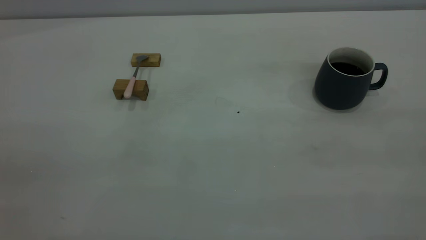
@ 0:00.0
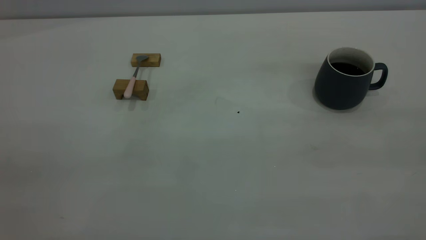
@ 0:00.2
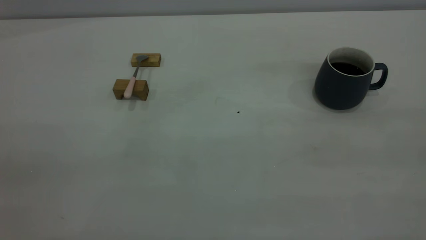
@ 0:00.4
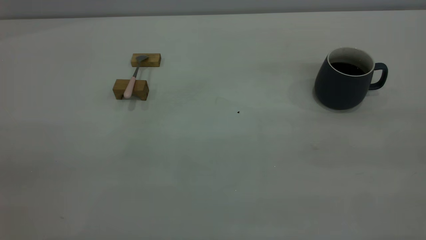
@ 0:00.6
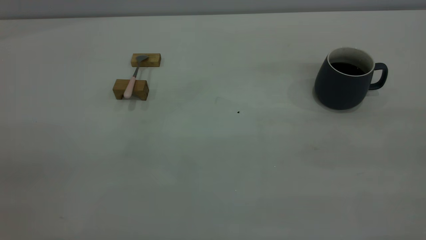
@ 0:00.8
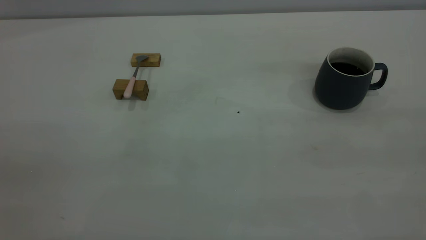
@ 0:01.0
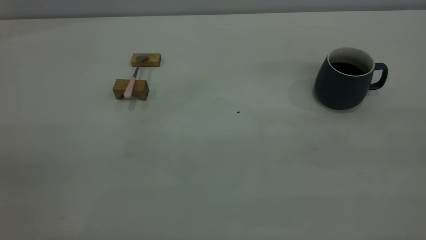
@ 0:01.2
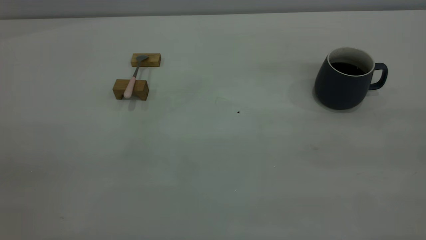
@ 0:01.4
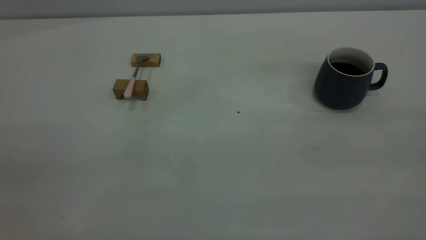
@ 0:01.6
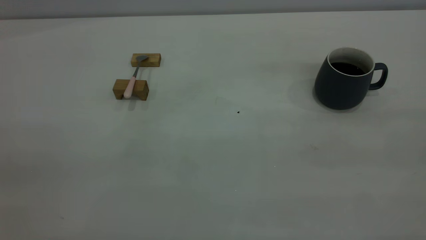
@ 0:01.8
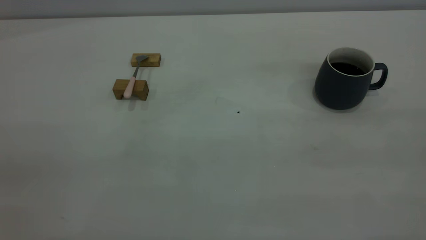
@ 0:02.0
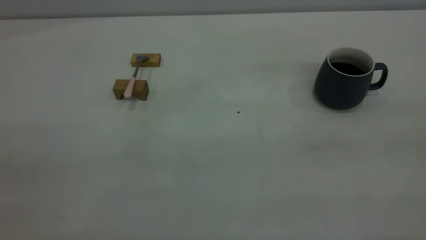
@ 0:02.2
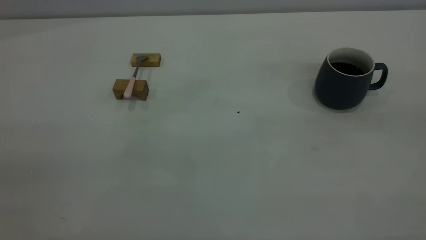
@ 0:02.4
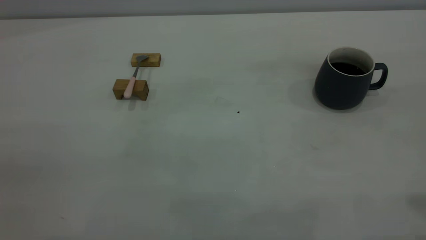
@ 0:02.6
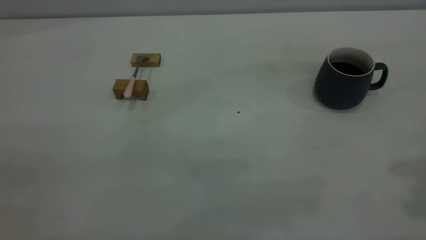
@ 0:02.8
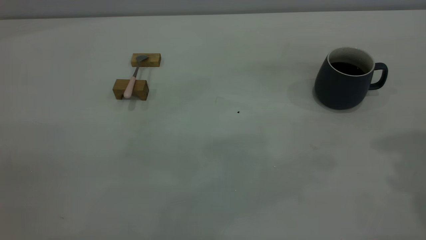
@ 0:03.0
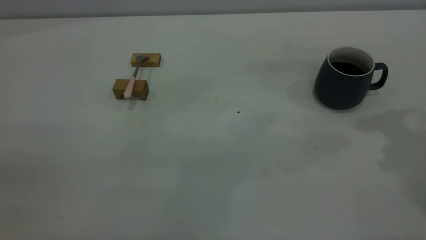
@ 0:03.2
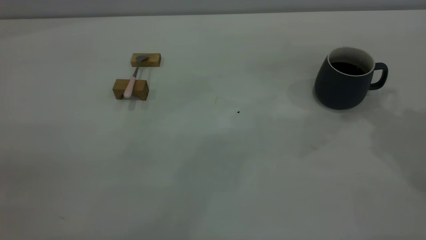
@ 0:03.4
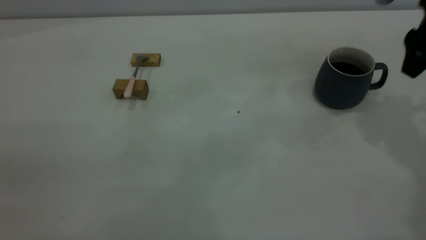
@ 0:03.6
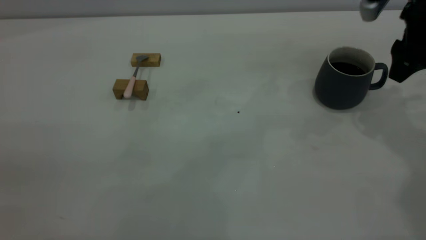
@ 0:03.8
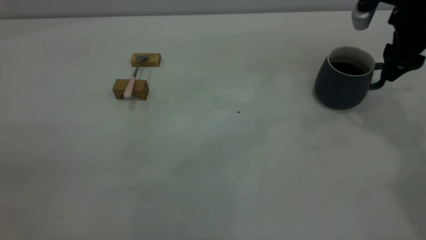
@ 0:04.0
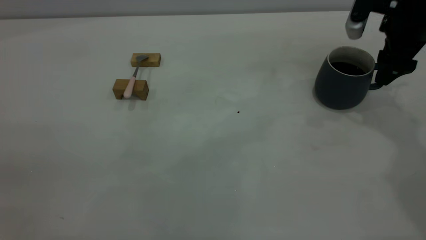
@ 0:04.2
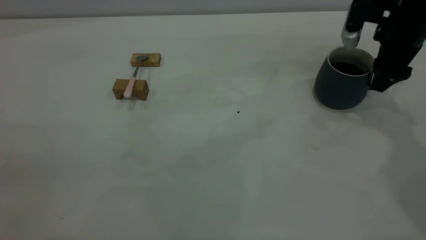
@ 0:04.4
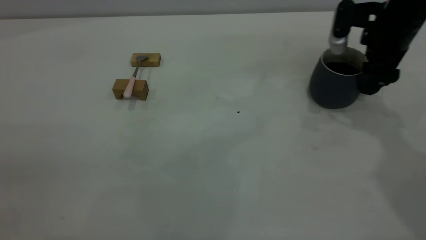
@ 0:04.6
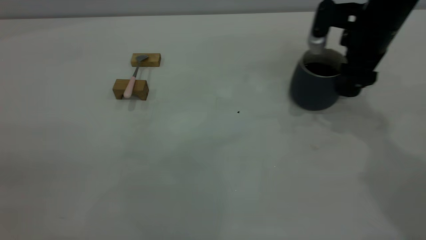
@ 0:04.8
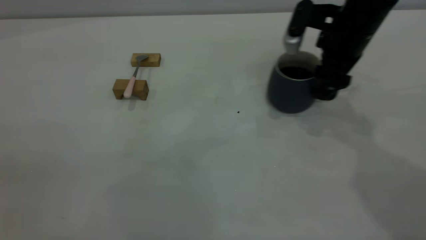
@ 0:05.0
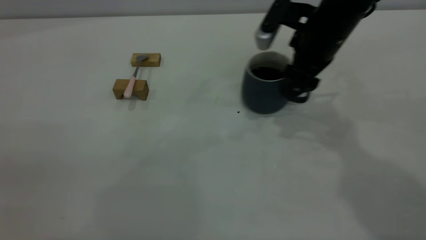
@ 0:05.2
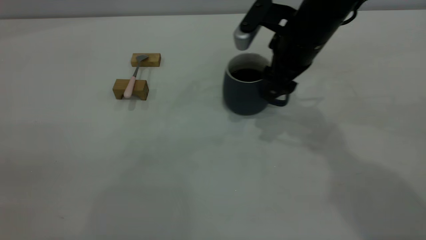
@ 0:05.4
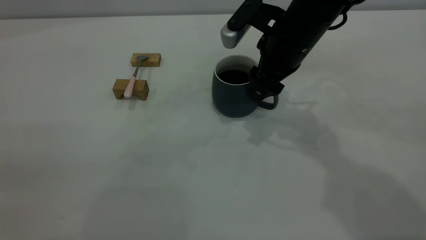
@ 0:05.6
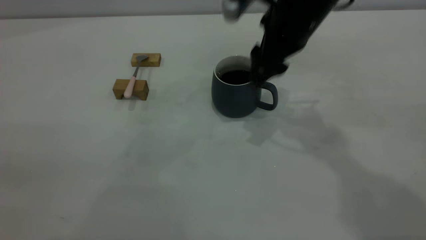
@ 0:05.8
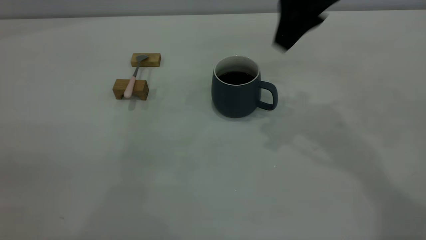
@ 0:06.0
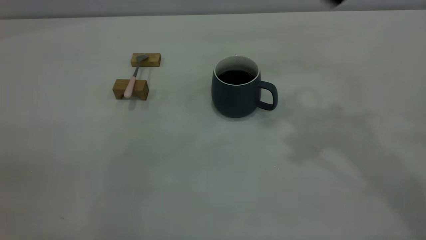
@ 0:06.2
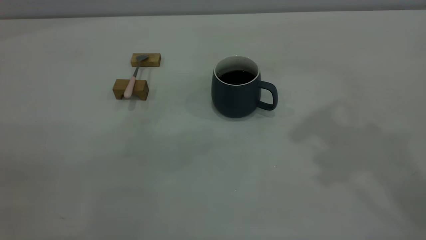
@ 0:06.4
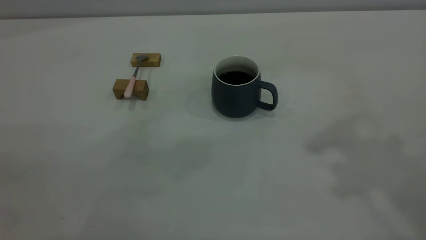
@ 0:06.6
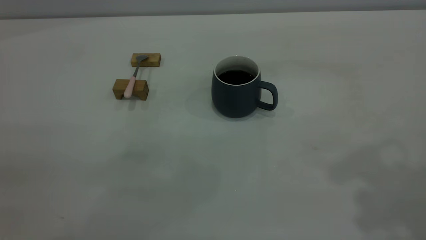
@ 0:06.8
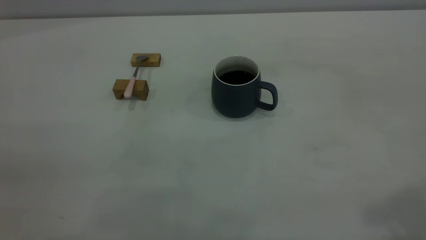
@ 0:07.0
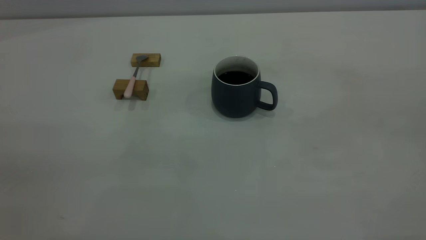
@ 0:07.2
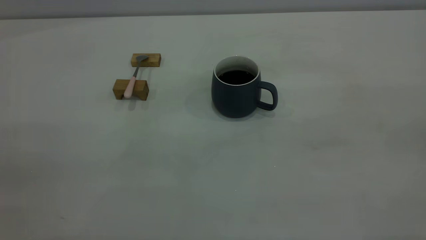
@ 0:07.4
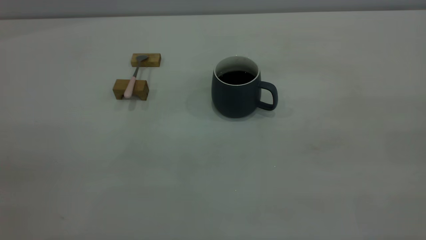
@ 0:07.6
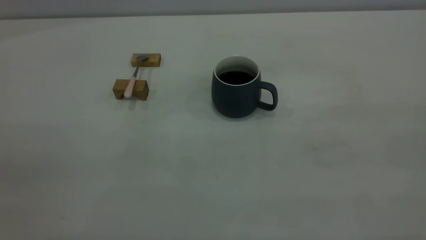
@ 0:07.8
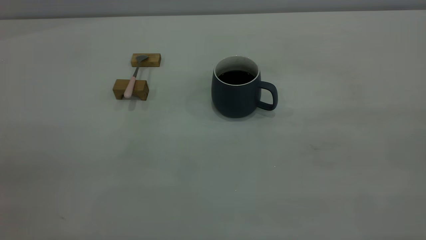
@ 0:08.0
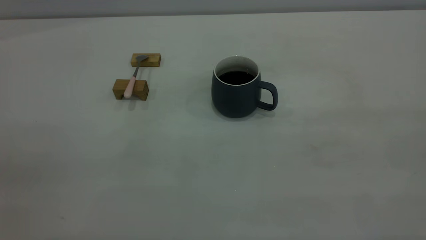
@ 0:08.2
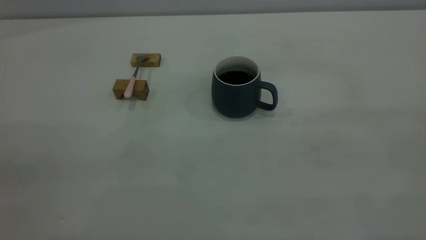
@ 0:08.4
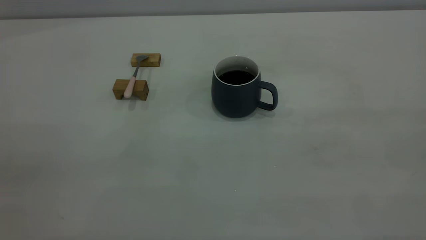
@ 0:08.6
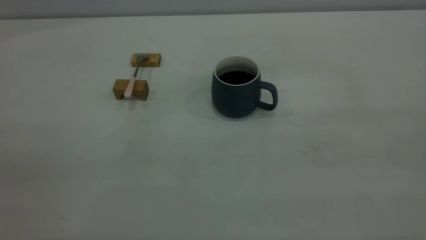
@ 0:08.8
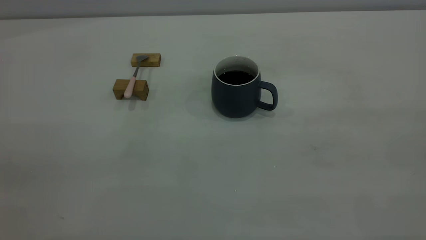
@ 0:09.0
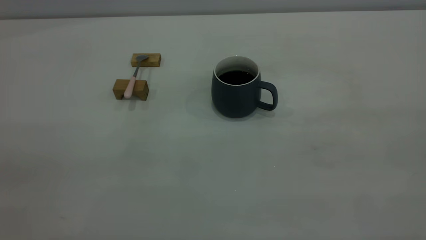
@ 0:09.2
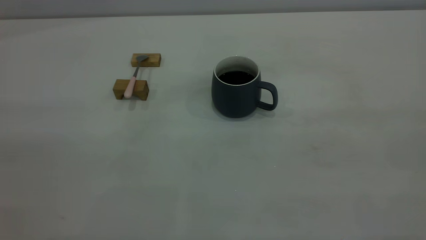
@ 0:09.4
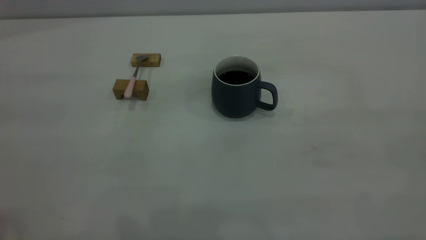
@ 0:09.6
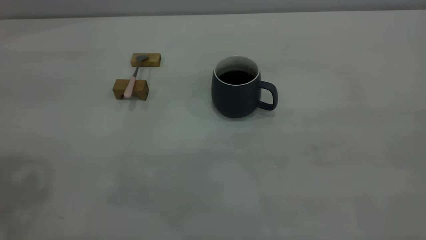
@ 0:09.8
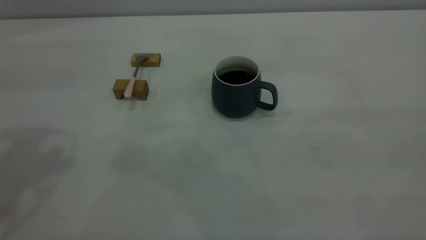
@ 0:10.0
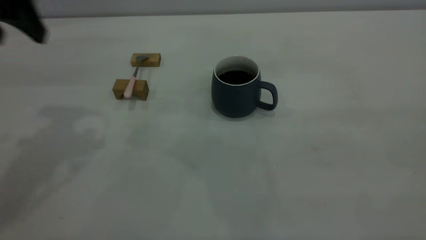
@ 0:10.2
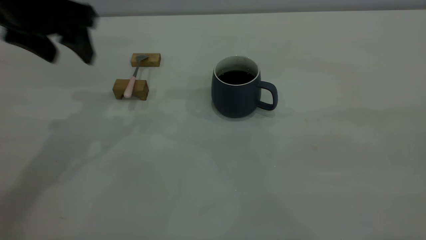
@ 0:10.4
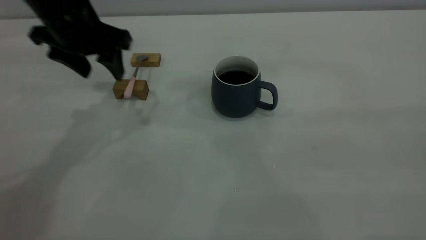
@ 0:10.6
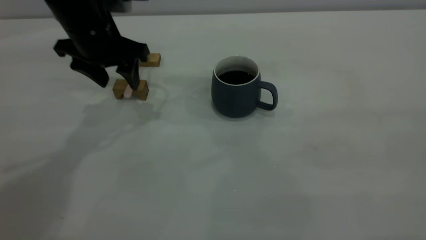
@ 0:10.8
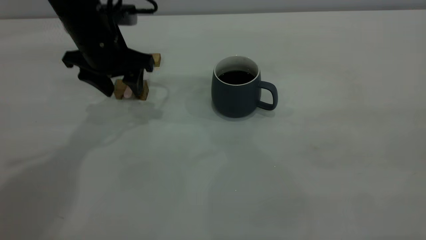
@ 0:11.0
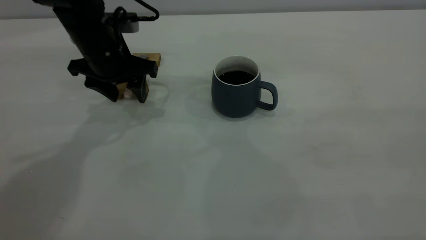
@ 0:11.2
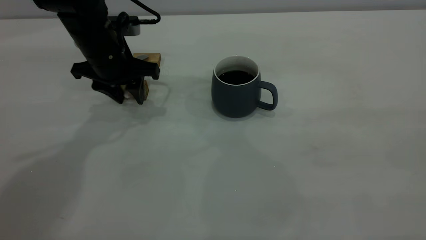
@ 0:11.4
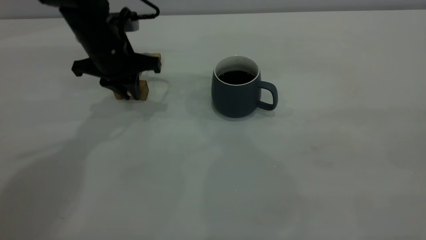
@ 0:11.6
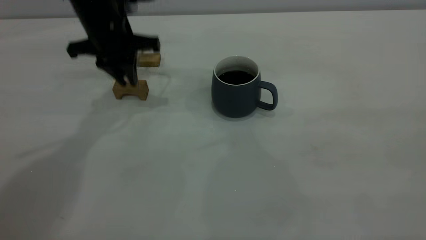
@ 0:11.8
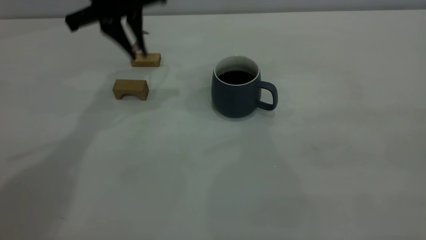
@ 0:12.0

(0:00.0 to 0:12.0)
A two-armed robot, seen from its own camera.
Step, 0:00.0 - 0:05.8: Move the cup with coffee to the center of view.
Step, 0:06.0 - 0:11.8: Pick up the spoon.
0:00.0 - 0:01.6: Both grippers stay put.
0:03.0 - 0:04.4: The right gripper shifts approximately 25 cm downward and forward.
0:04.4 - 0:06.0: The right gripper is displaced upward and to the left by approximately 20 cm.
0:06.0 - 0:07.6: The right gripper moves backward and to the right, about 35 cm.
0:09.0 - 0:10.4: The left gripper goes roughly 35 cm forward, and opens its fingers.
0:10.4 - 0:12.0: The left gripper goes roughly 10 cm forward and to the right, goes downward and returns, about 10 cm each way, and closes its fingers.

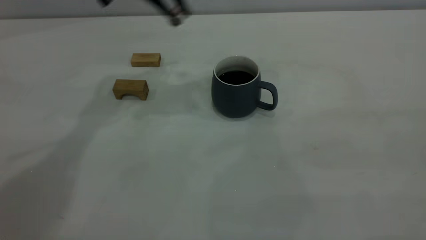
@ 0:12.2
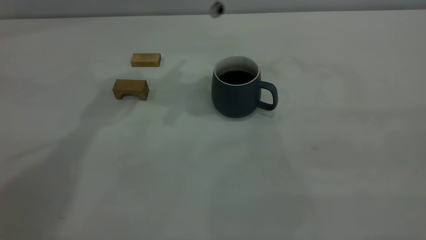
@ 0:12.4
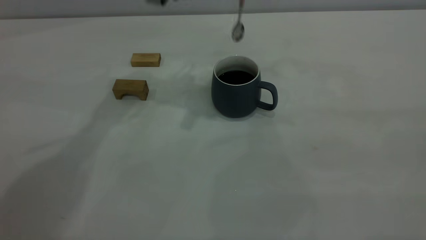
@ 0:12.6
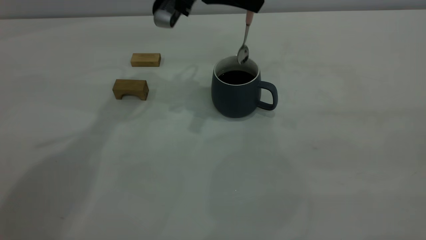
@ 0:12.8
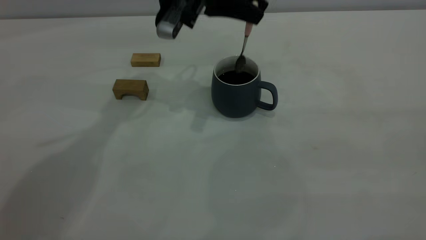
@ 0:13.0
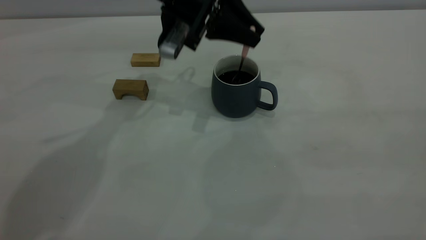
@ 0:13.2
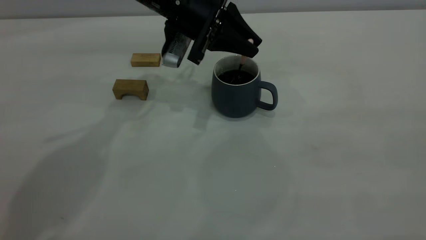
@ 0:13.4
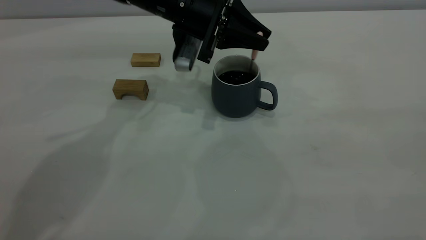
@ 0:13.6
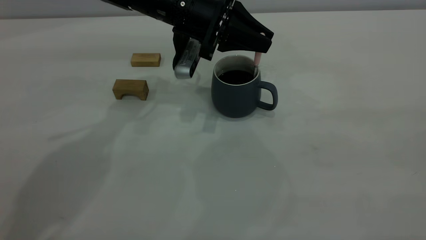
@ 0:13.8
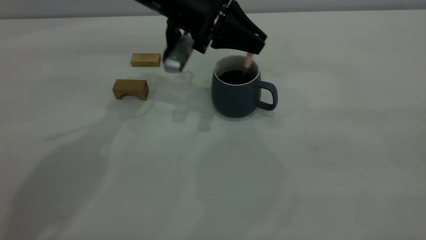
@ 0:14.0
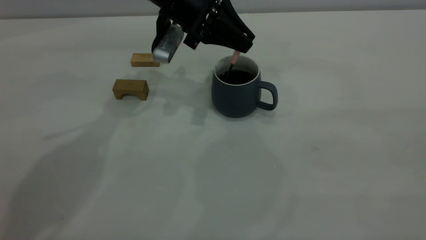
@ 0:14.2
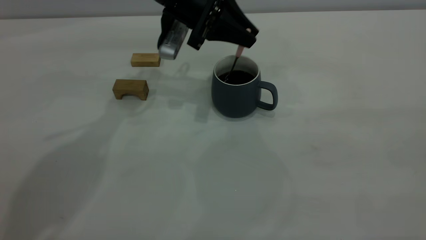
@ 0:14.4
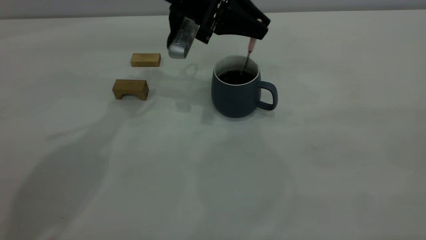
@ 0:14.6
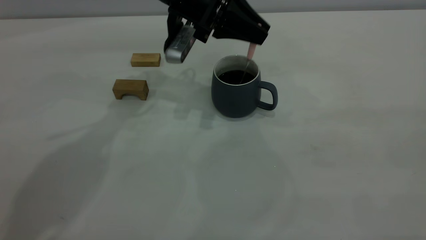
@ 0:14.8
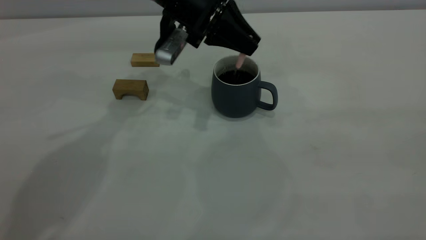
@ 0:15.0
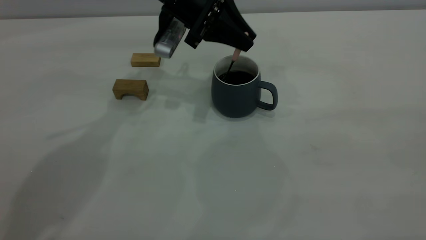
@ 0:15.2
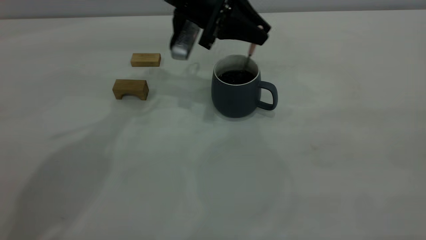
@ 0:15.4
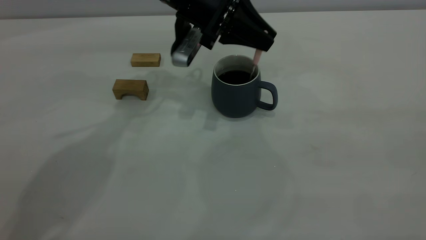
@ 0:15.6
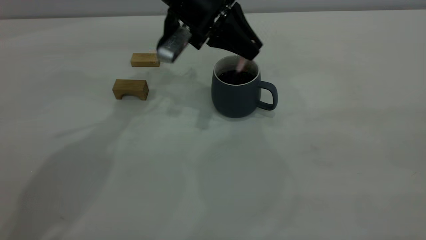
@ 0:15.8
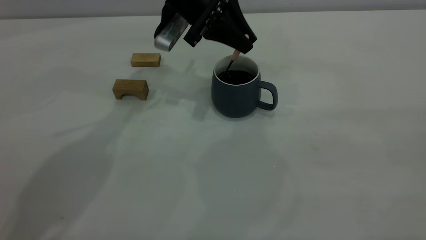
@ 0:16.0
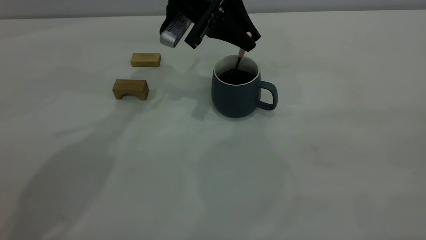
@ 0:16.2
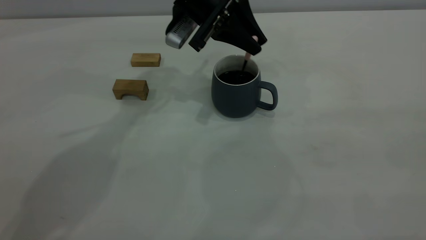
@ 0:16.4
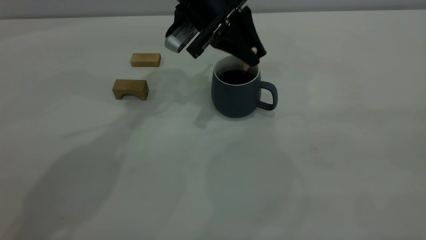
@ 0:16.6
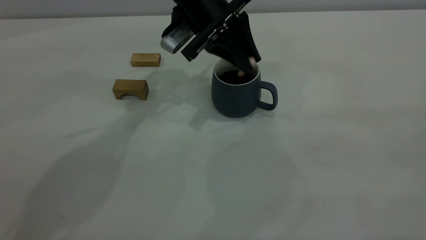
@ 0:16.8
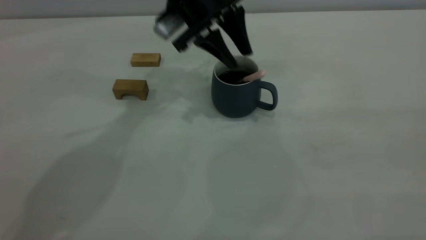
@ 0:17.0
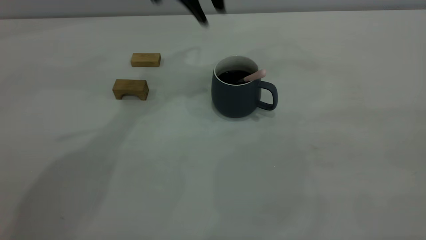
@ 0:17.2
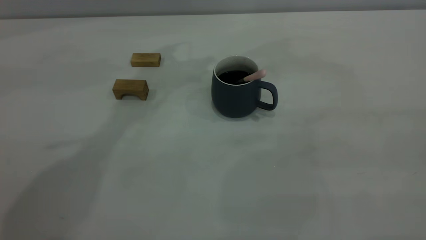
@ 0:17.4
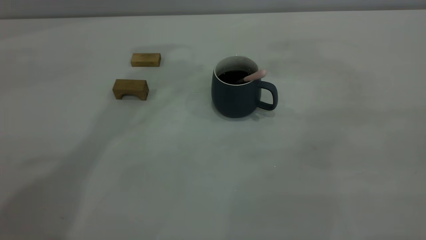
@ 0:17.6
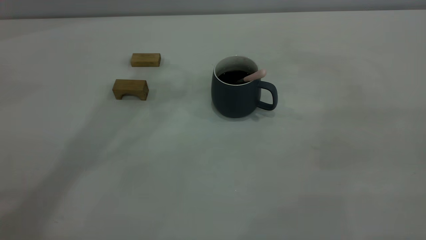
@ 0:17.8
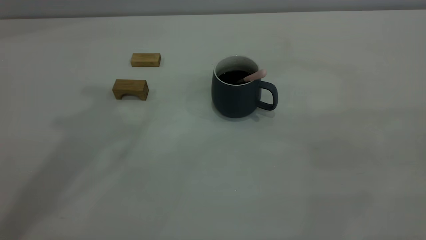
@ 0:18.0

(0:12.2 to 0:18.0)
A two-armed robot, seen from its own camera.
Step, 0:12.2 - 0:17.0: Stir the coffee in the cup.
0:12.2 - 0:13.6: The left gripper goes about 15 cm downward and to the right.
0:13.6 - 0:15.0: The grippers make only small movements.
0:16.6 - 0:18.0: The left gripper travels upward, to the left and backward by about 35 cm, and opens.
